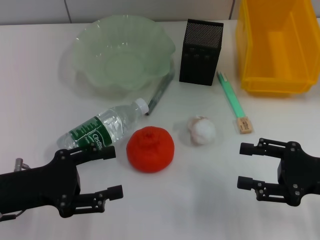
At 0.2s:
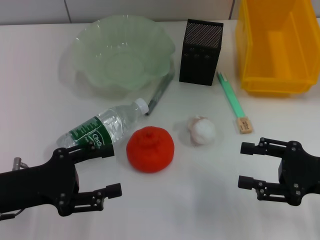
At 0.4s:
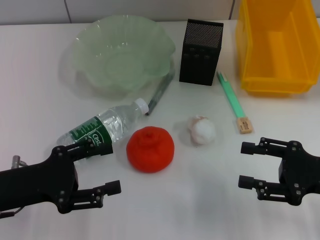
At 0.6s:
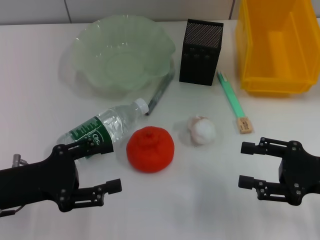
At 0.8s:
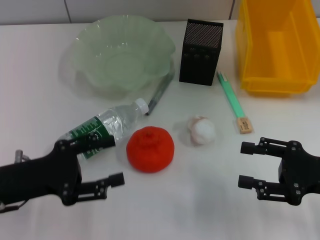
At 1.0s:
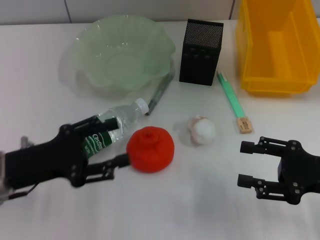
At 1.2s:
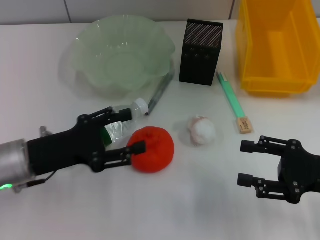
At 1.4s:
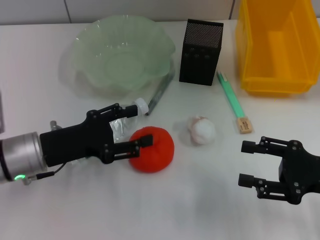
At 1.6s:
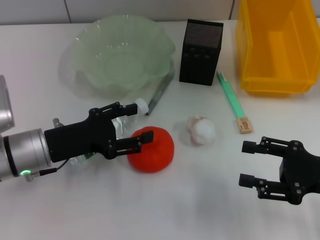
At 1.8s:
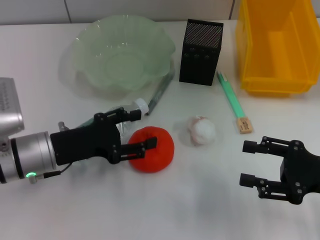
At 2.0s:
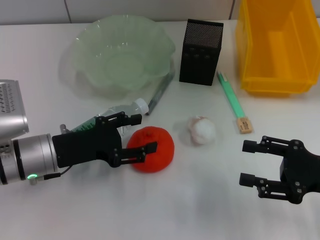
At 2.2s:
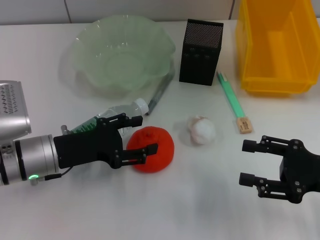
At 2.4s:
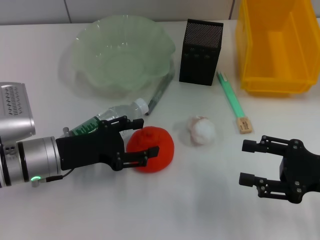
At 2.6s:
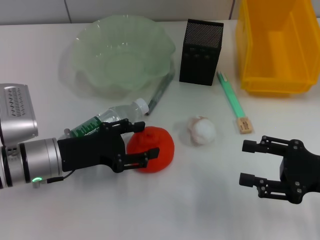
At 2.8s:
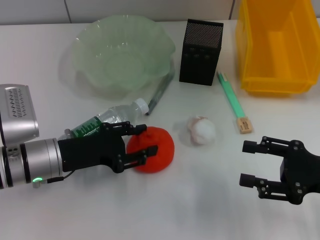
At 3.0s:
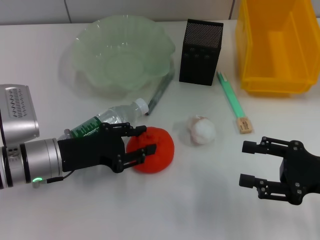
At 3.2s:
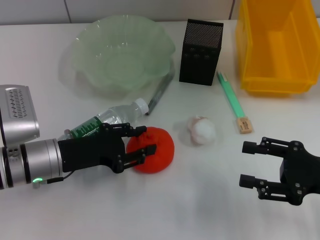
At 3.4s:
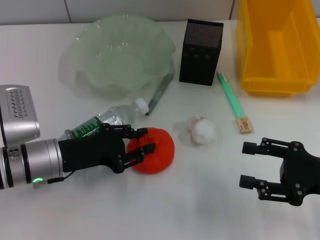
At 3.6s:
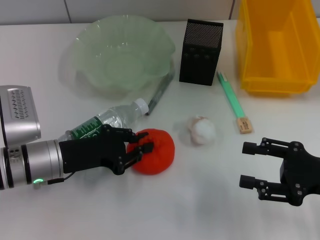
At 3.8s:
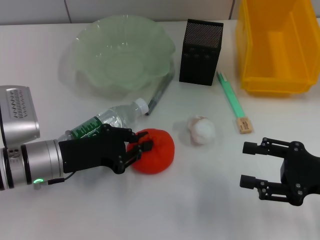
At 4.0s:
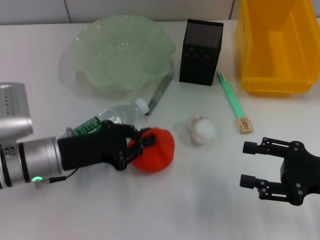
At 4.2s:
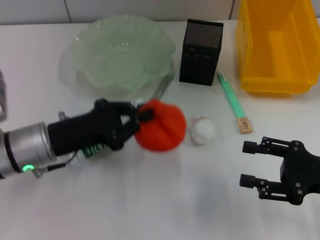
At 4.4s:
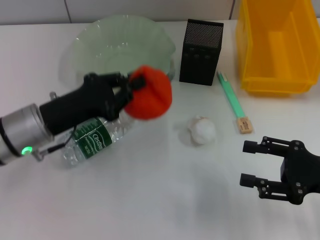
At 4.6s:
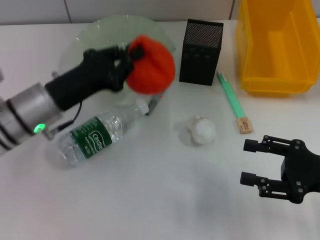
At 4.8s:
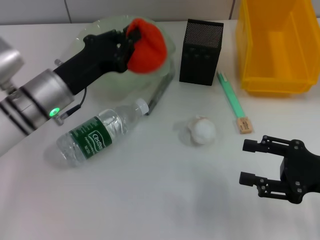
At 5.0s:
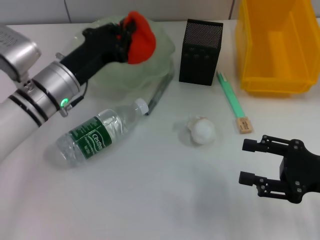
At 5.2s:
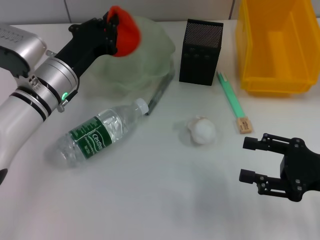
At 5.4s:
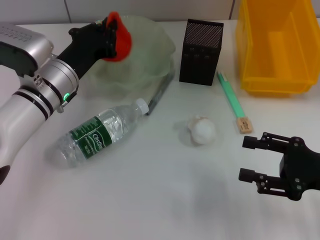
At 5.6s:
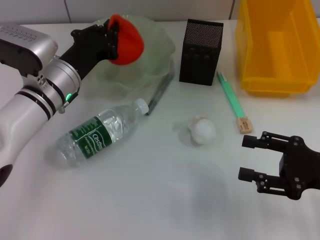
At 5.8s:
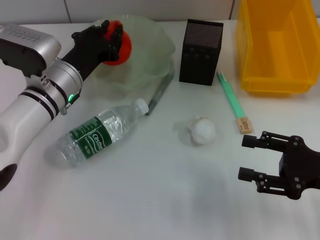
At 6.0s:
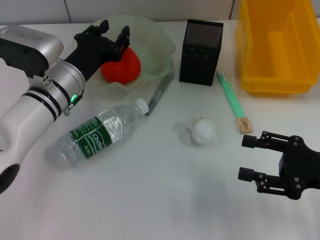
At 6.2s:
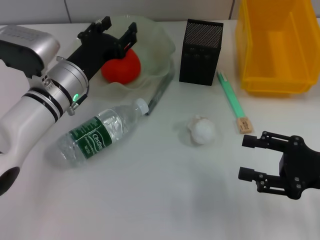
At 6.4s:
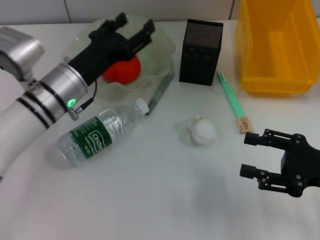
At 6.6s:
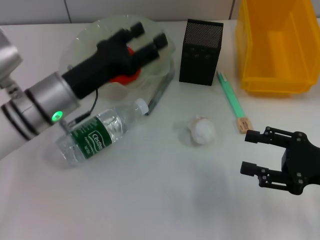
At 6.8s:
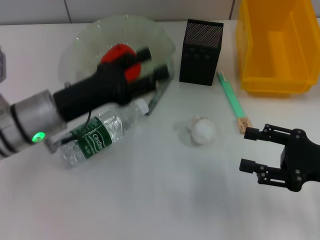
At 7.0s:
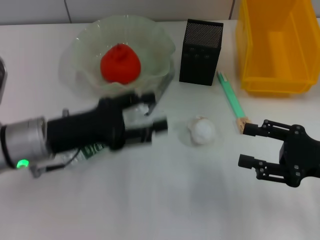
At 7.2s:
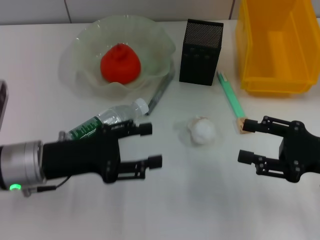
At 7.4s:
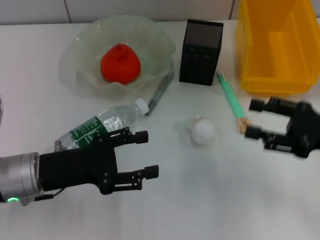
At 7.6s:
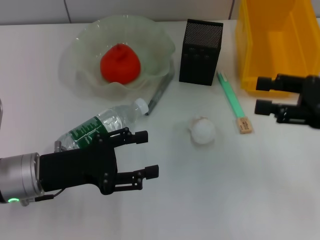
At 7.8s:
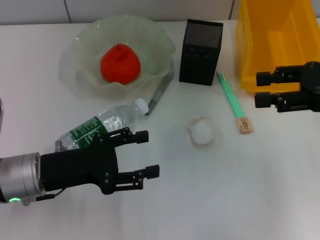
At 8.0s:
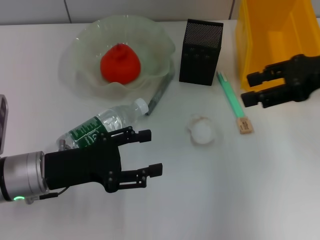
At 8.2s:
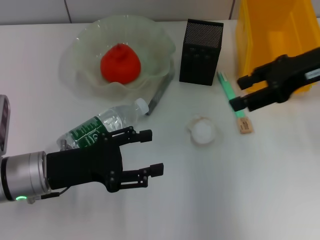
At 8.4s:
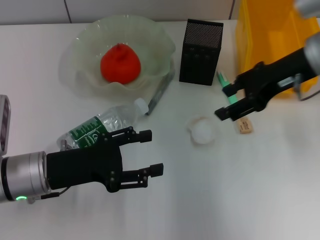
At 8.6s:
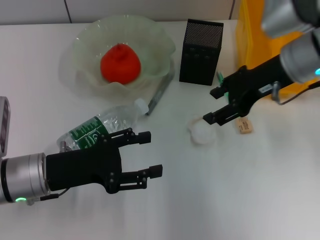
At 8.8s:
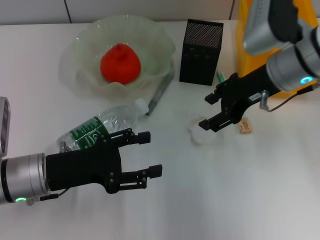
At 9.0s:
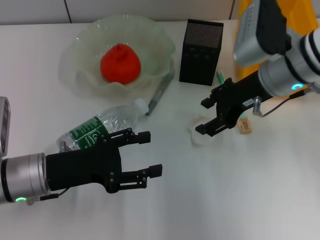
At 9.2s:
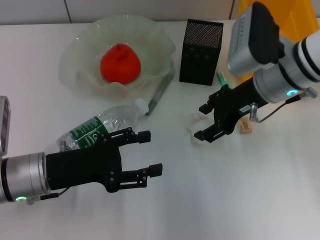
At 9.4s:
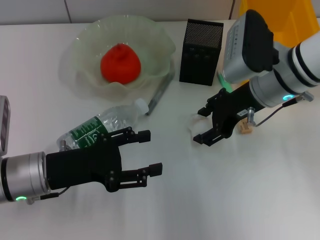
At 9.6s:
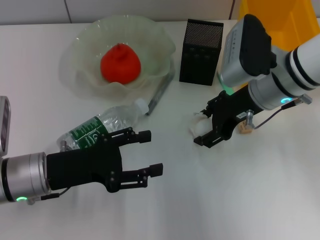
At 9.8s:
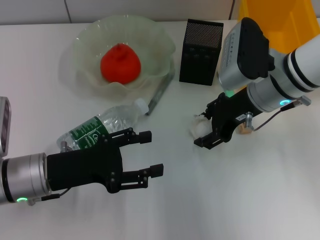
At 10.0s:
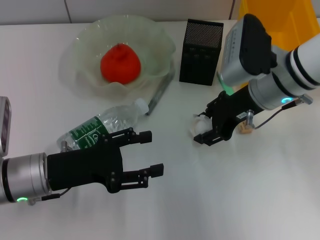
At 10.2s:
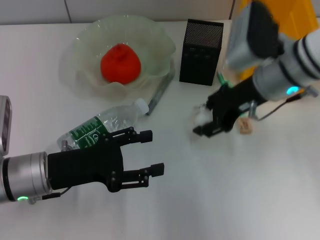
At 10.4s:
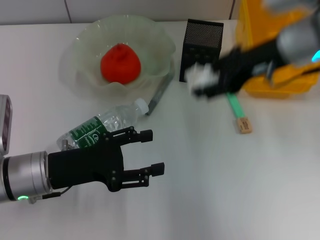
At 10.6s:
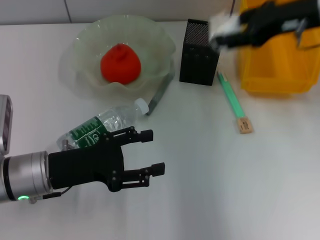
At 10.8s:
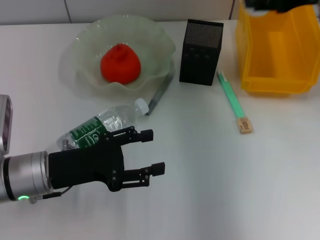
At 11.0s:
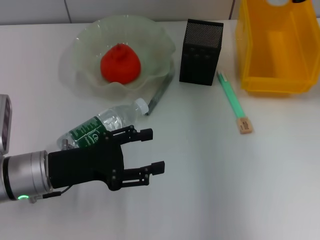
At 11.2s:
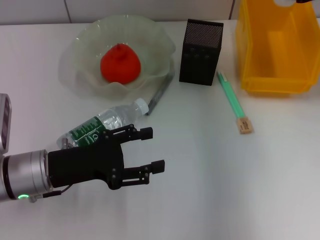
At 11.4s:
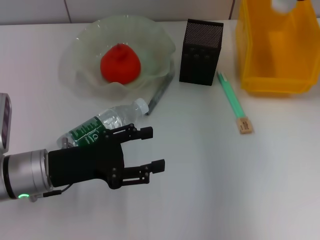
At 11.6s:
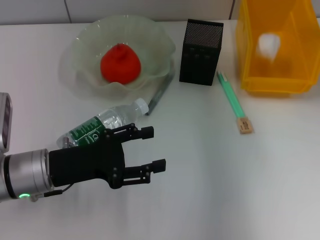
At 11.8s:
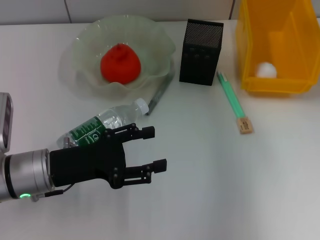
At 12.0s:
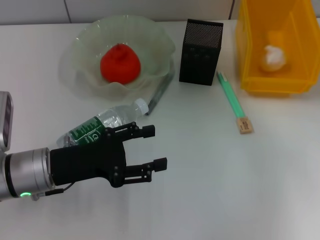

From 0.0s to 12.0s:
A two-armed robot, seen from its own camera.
Step, from 0.0s to 3.8s: Grab the orange with the left hand.
Step, from 4.0s to 6.2s: Place the orange into the fruit bowl with the left hand.
Step, from 6.4s to 9.8s: Grab the paper ball with the right hand.
Step, from 10.0s to 11.6s: Place the paper ball into the trash can with the right hand.
From 0.0s to 1.6s: The left gripper shifts some 5 cm forward.
From 1.6s to 3.0s: The grippers make only small movements.
From 3.0s to 4.4s: The left gripper closes.
From 4.4s to 6.0s: The left gripper travels forward by about 10 cm.
From 6.0s to 7.6s: The left gripper shifts roughly 15 cm backward and to the left, and opens its fingers; the right gripper heads upward and forward, covering approximately 10 cm.
From 7.6s to 9.0s: The right gripper goes approximately 15 cm to the left and forward.
From 9.0s to 10.4s: The right gripper shifts roughly 5 cm upward.
From 10.4s to 12.0s: The right gripper heads to the right, covering roughly 15 cm, and opens.

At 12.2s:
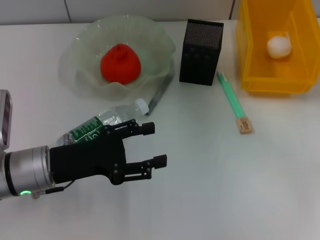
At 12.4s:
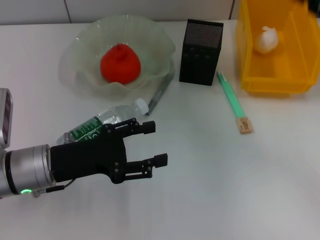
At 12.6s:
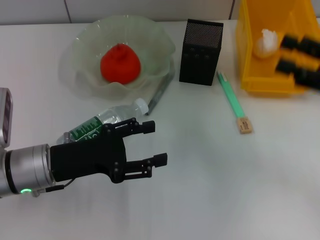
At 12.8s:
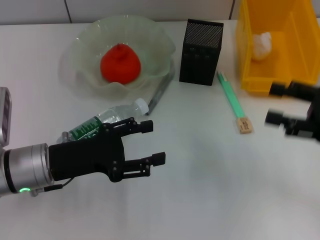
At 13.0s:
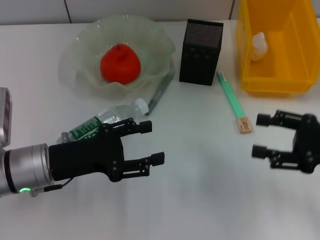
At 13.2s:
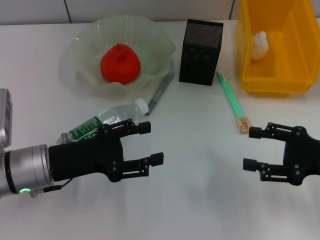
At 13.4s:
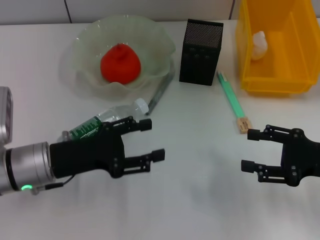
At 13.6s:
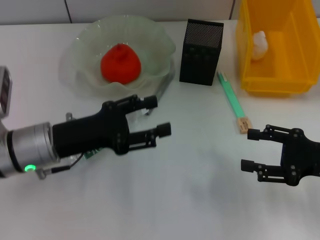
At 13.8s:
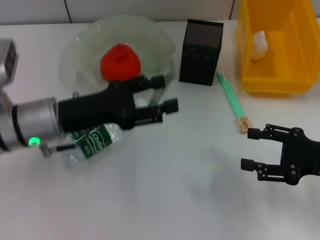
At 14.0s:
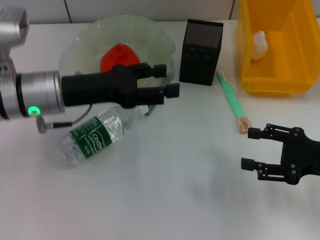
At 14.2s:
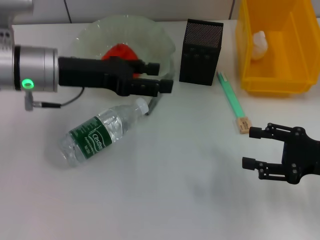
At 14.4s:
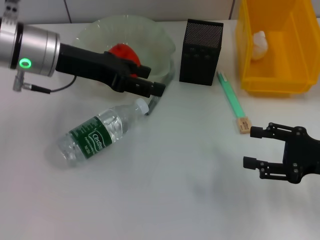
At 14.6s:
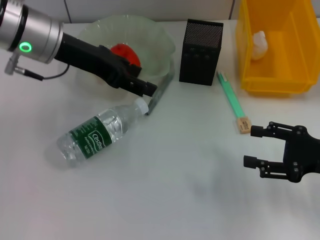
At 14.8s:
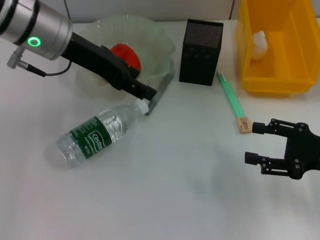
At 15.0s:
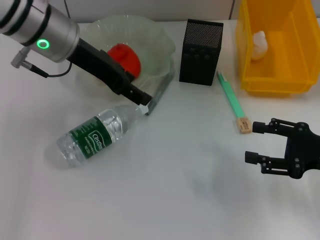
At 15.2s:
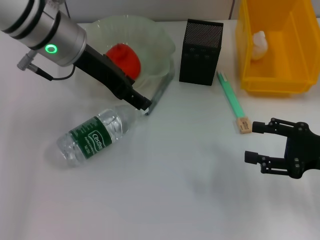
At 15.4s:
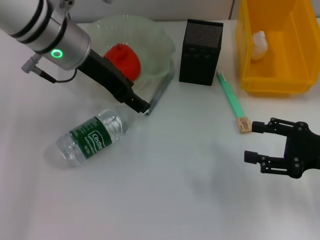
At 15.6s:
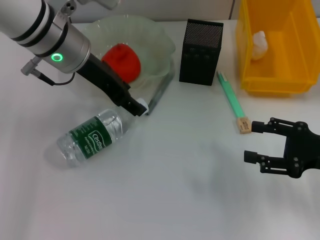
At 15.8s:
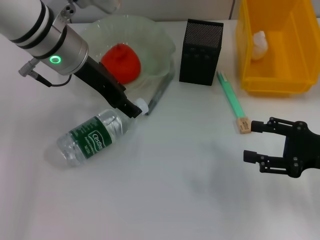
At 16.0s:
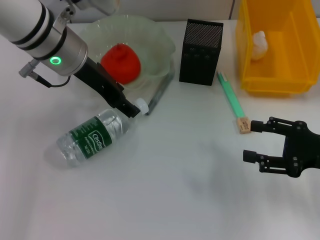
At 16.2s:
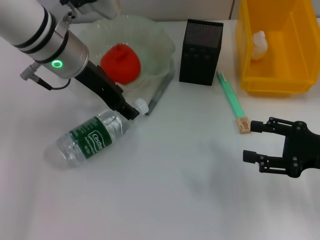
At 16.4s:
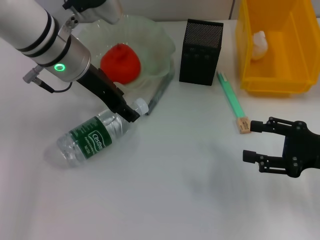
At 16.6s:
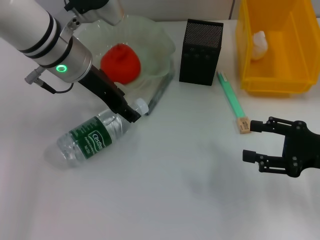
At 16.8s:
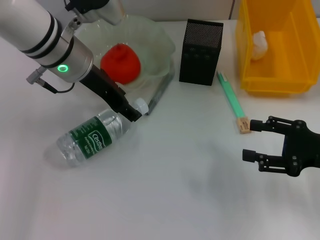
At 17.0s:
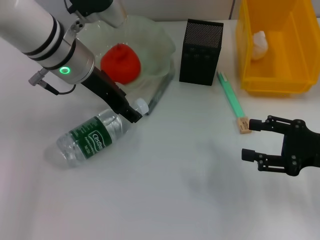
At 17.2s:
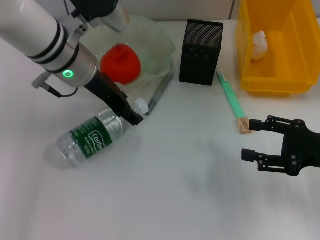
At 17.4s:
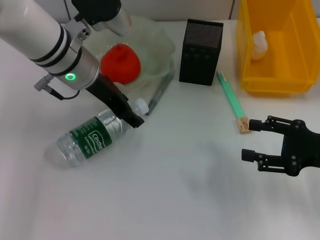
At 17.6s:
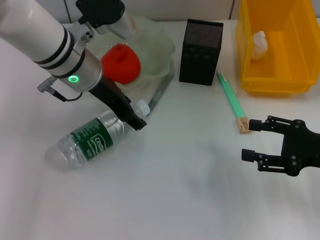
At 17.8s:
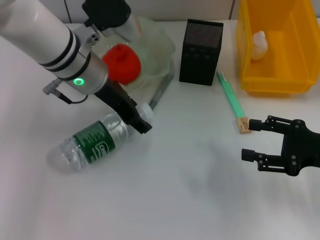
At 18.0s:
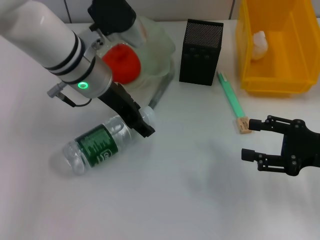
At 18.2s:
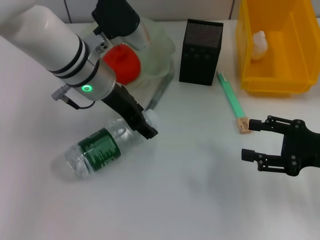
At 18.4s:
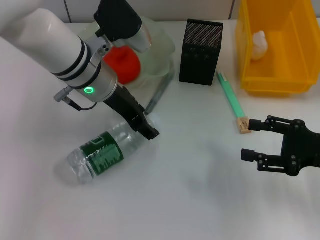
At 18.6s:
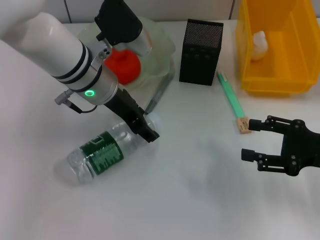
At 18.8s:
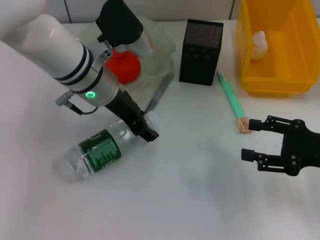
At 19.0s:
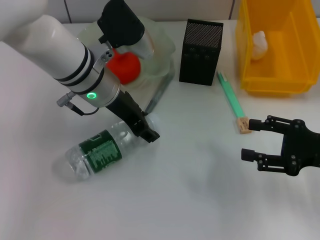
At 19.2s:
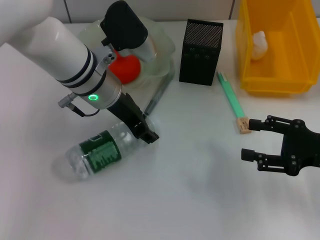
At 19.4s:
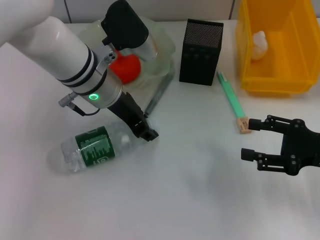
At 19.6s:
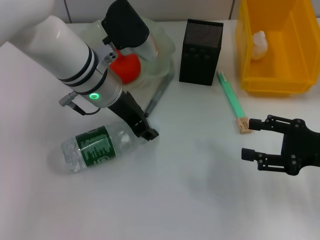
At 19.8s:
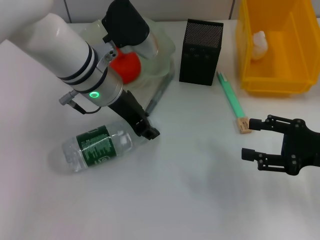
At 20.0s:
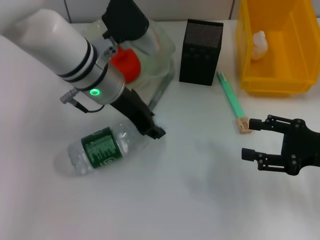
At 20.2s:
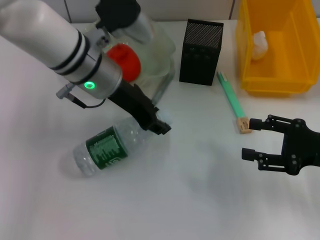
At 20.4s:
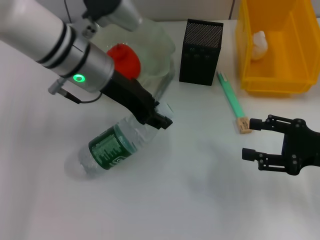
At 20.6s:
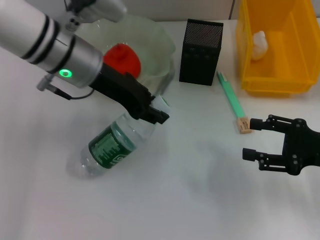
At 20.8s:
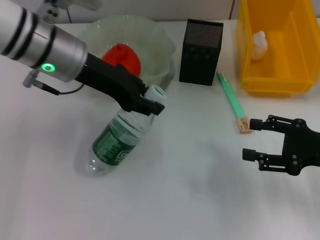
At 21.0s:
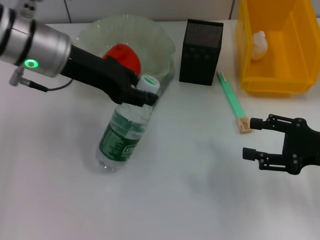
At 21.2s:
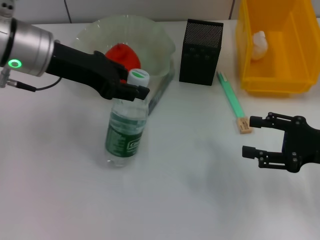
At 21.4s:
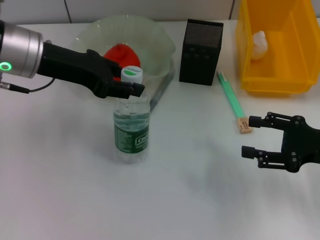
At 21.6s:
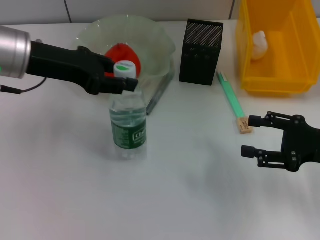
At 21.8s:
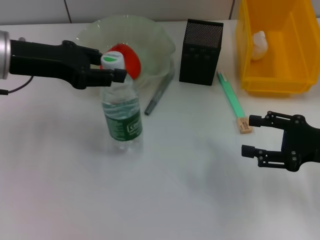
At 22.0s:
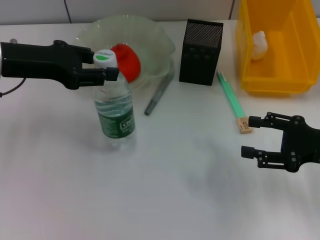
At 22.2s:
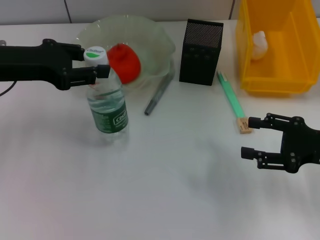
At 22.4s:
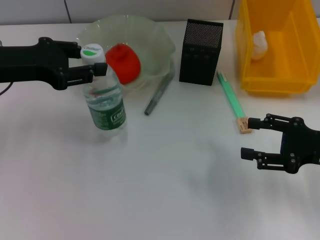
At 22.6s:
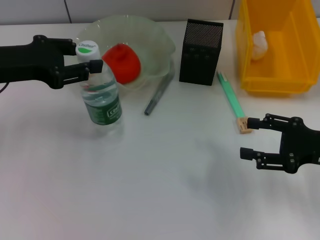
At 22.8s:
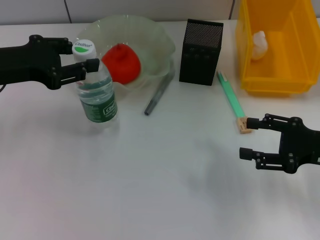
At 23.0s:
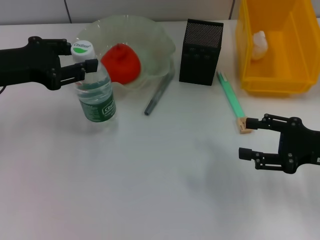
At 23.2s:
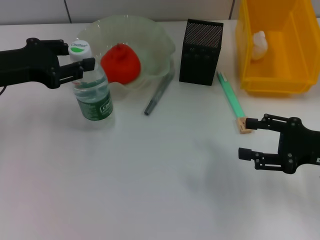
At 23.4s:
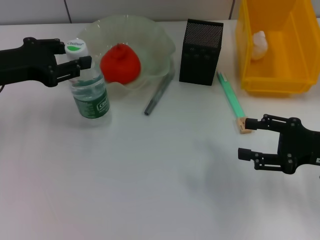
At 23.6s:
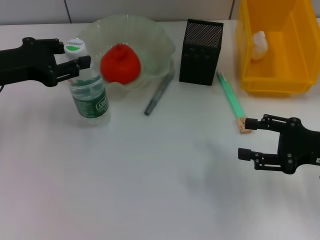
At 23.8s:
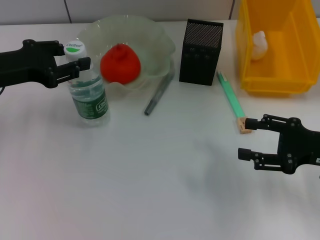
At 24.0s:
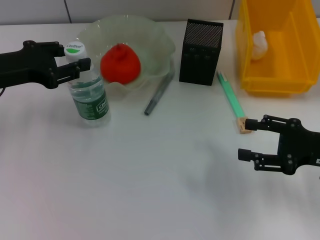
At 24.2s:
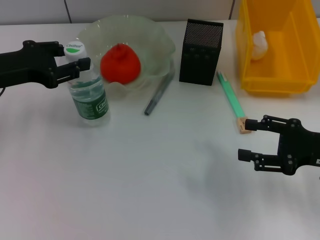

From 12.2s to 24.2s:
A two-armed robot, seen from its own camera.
Step, from 12.2s to 20.0s: Grab the water bottle with the left hand.
From 12.2s to 13.8s: The left gripper moves approximately 5 cm, while the right gripper shifts about 15 cm downward and backward.
From 13.8s to 15.2s: The left gripper moves upward and forward, roughly 15 cm.
From 15.2s to 16.6s: There are only small adjustments of the grippers.
From 16.6s to 18.2s: The grippers make only small movements.
From 18.2s to 19.8s: The left gripper closes its fingers.
From 19.8s to 21.2s: The left gripper heads to the left and upward, covering approximately 10 cm.
From 21.2s to 22.6s: The left gripper shifts approximately 10 cm to the left.
From 22.6s to 24.2s: The grippers move only a little.
